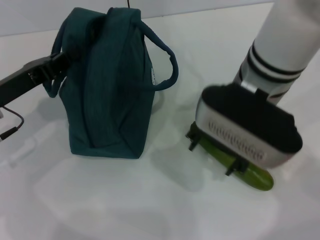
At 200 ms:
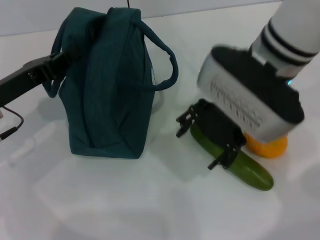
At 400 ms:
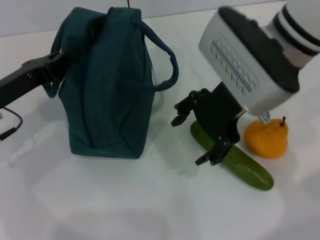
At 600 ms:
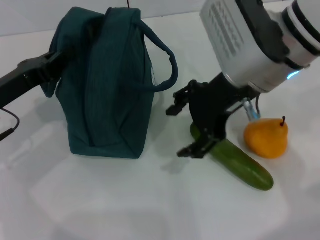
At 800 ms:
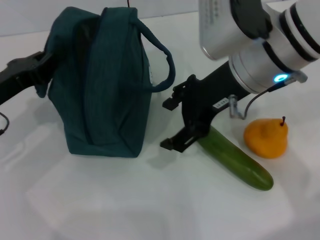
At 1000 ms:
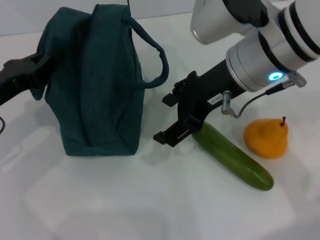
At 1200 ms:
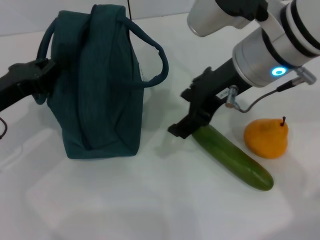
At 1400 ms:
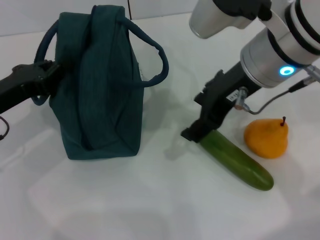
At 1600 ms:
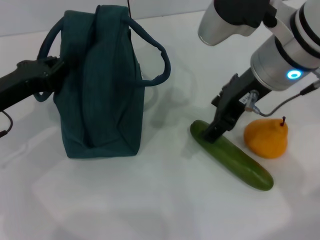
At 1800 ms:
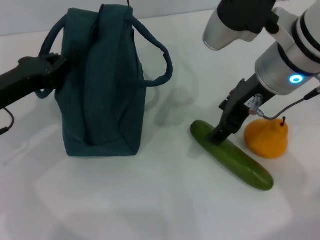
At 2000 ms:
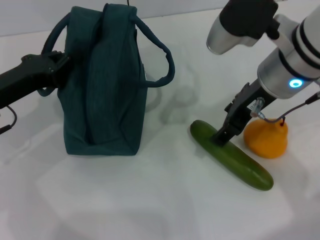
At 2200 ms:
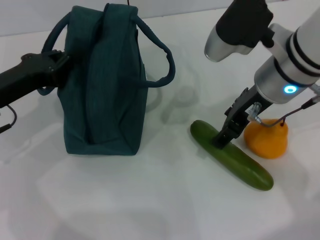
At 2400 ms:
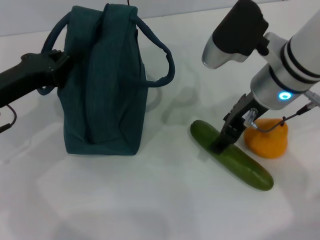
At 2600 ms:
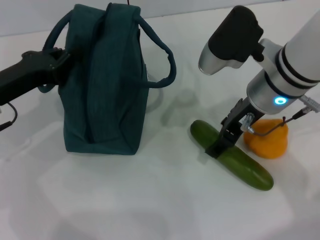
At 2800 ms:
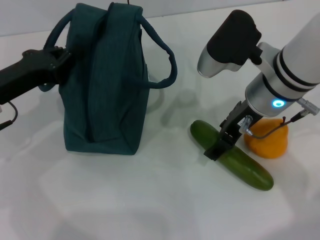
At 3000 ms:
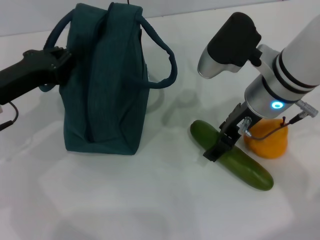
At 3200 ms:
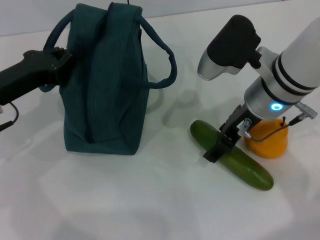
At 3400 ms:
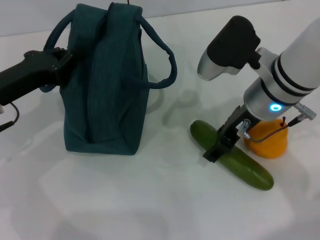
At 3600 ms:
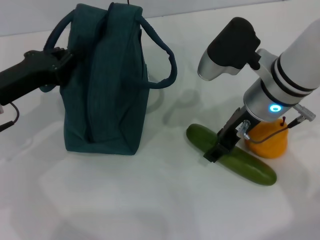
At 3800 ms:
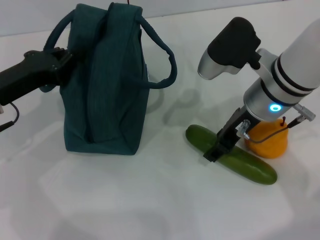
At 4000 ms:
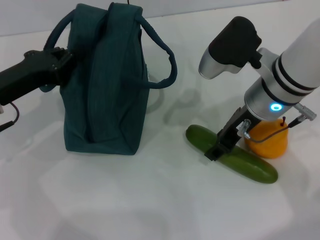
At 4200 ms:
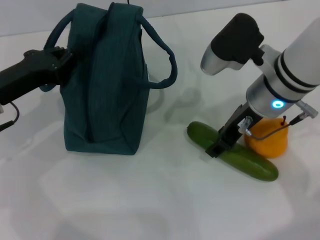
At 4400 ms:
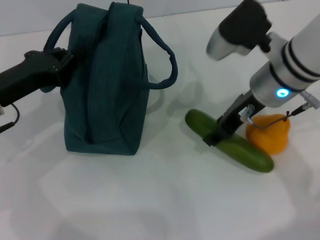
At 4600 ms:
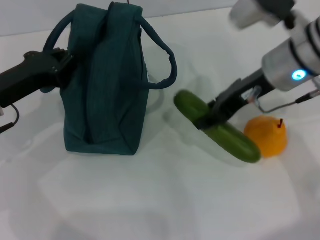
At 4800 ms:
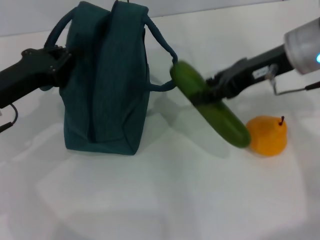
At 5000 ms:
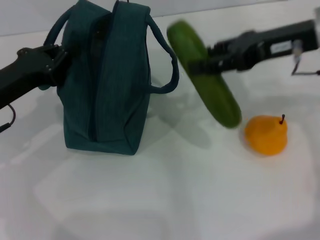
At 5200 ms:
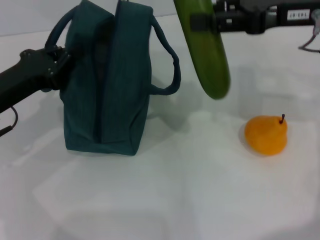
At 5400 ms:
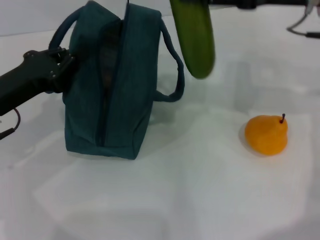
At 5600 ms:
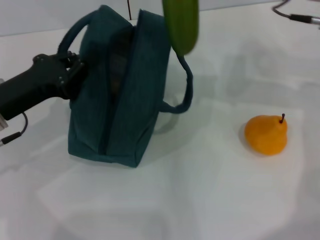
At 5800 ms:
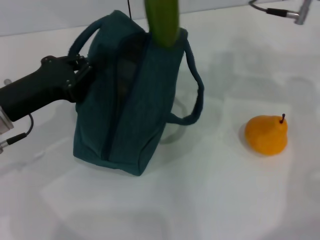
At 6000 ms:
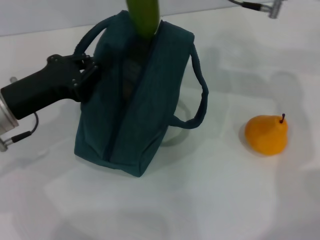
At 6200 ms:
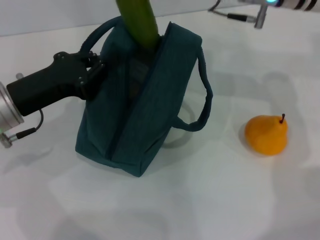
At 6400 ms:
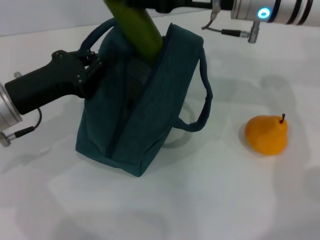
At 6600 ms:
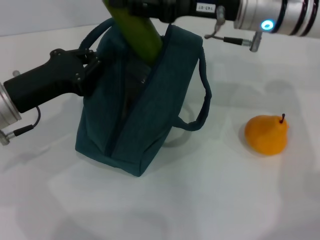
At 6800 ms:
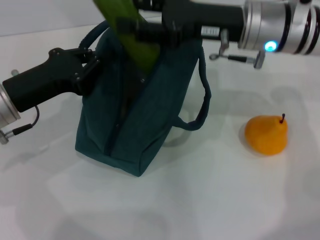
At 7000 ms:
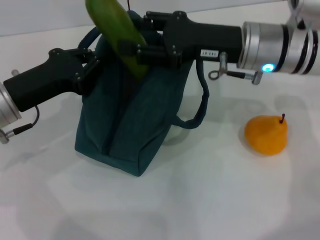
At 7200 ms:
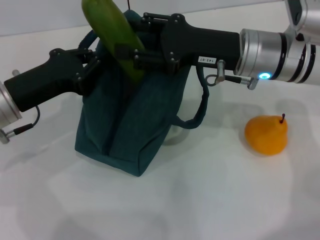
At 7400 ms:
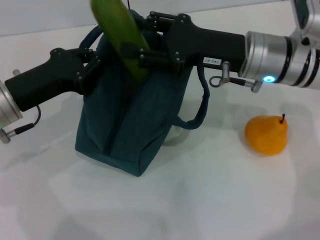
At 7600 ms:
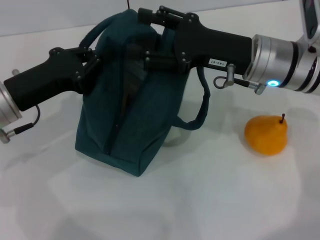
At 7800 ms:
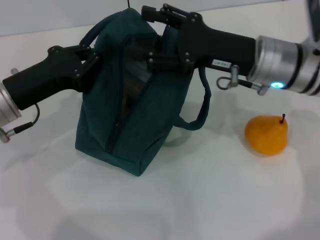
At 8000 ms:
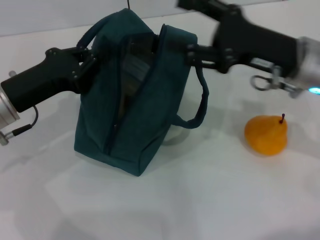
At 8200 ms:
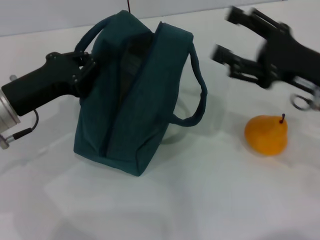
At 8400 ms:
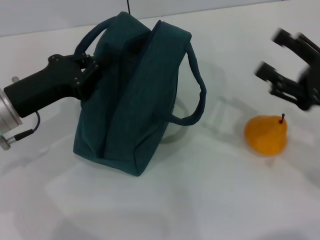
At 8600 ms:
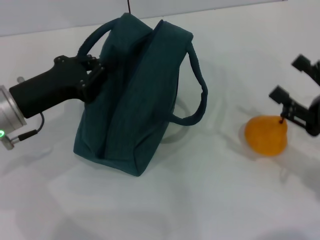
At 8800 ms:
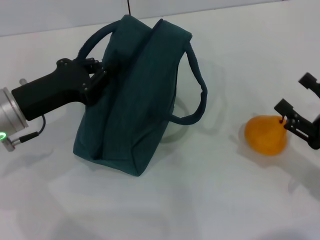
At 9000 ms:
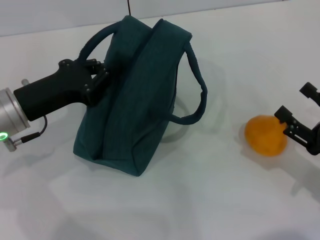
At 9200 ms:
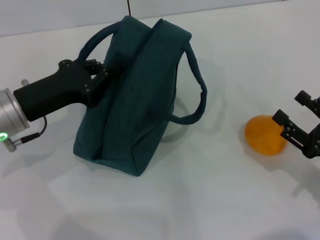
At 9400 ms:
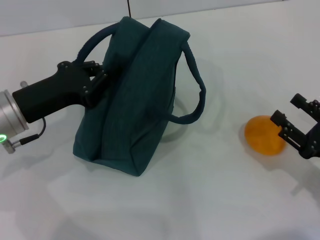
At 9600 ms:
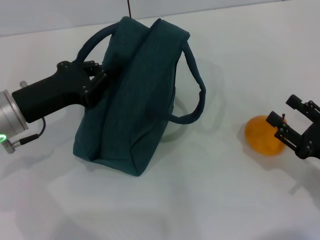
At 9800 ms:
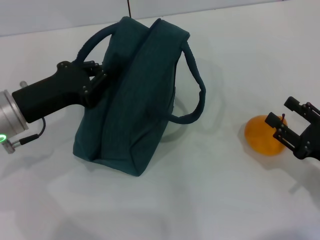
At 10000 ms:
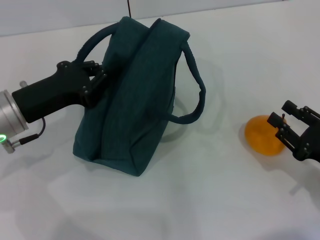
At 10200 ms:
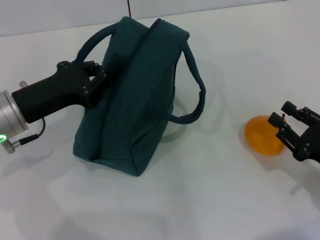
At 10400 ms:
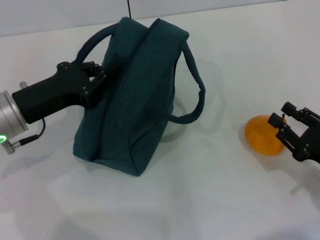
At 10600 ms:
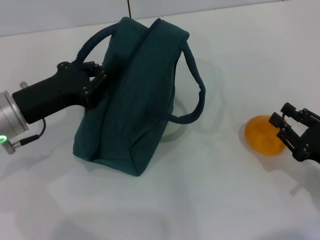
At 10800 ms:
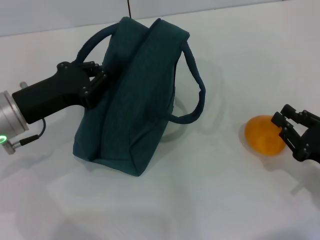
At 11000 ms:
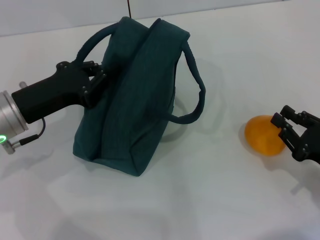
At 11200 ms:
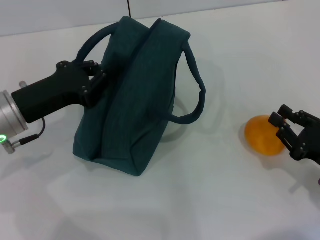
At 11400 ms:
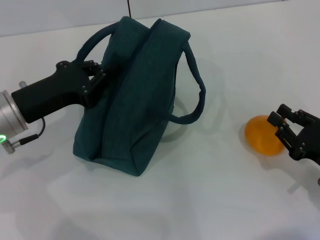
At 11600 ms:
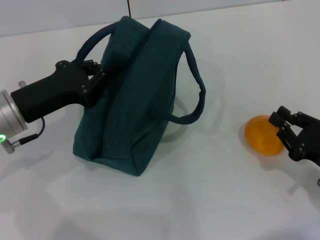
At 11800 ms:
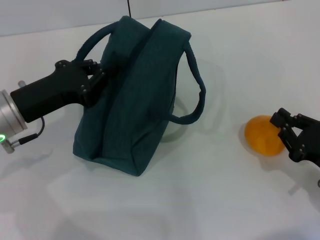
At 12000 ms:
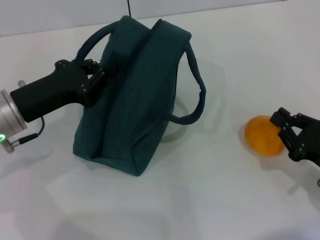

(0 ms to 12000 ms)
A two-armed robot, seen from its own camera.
Step, 0 ms - 3800 ms: Pick up the cucumber with your right hand.
Step, 4000 ms - 7600 ms: Put the cucumber into the lunch bag with your right hand.
1600 ms - 3000 ms: The right gripper shifts roughly 5 cm downward.
3000 ms - 4400 ms: The grippers move only a little.
4400 ms - 6000 ms: The right gripper heads upward and forward, covering roughly 10 cm, and goes to the right and returns, about 10 cm each way.
6000 ms - 7600 ms: The right gripper shifts some 10 cm downward and backward.
7600 ms - 9000 ms: The right gripper heads backward, to the right and downward, covering some 25 cm.
9000 ms - 10400 ms: The right gripper closes.
10400 ms - 12000 ms: Both grippers stay about where they are.

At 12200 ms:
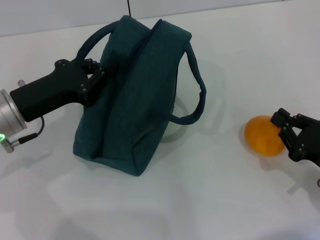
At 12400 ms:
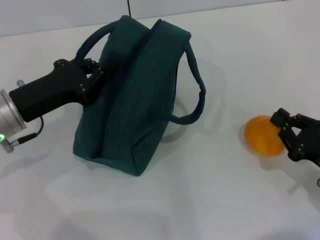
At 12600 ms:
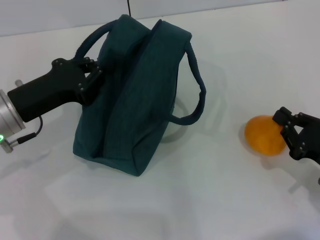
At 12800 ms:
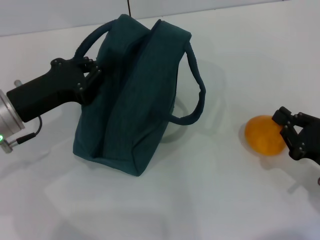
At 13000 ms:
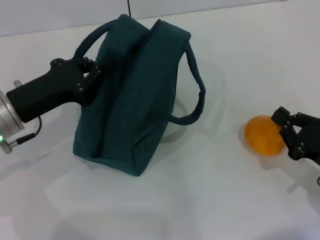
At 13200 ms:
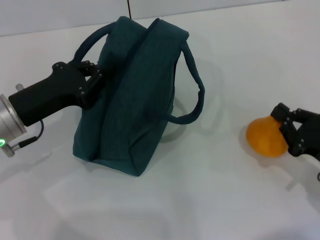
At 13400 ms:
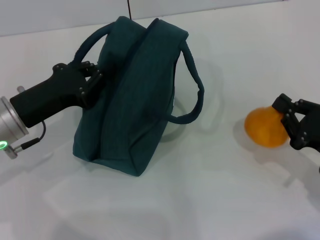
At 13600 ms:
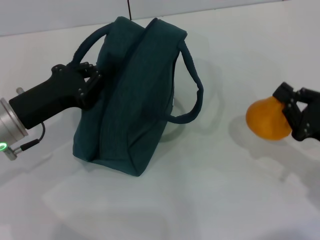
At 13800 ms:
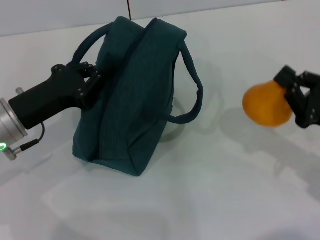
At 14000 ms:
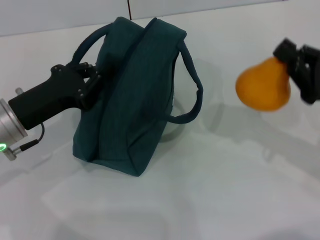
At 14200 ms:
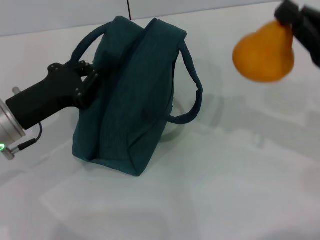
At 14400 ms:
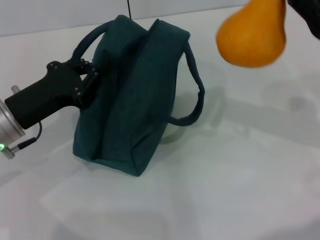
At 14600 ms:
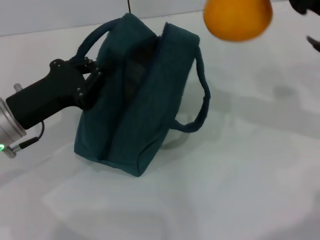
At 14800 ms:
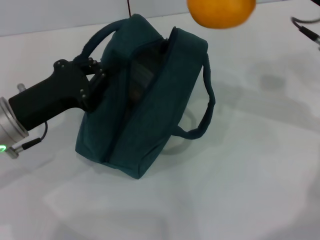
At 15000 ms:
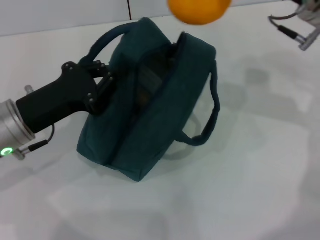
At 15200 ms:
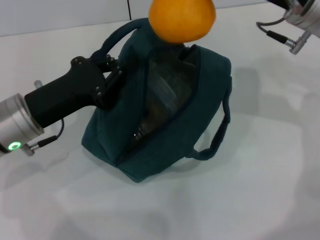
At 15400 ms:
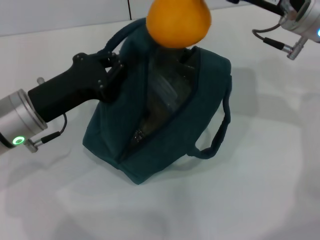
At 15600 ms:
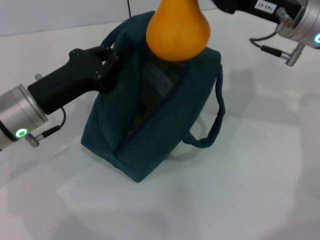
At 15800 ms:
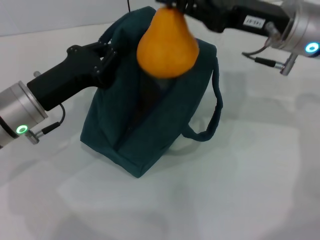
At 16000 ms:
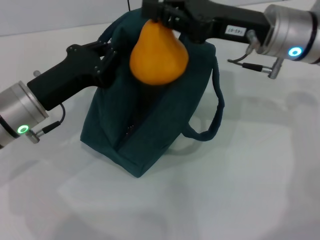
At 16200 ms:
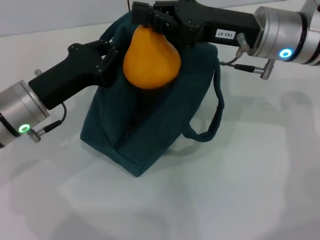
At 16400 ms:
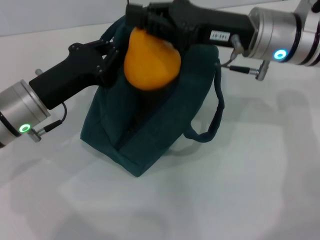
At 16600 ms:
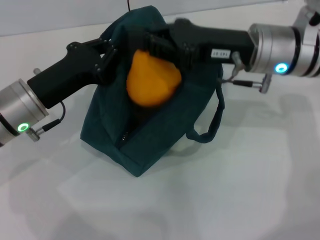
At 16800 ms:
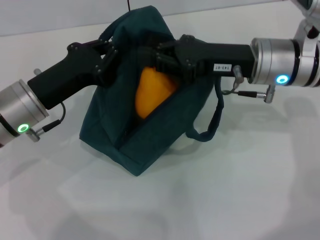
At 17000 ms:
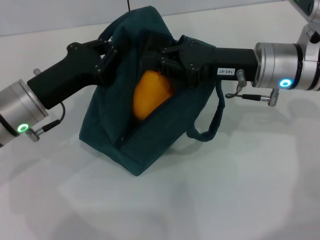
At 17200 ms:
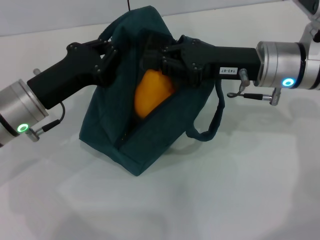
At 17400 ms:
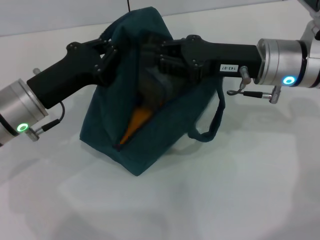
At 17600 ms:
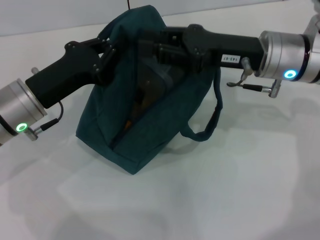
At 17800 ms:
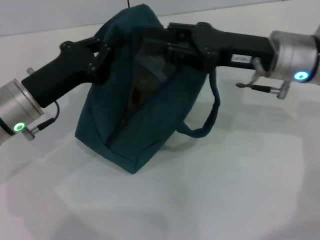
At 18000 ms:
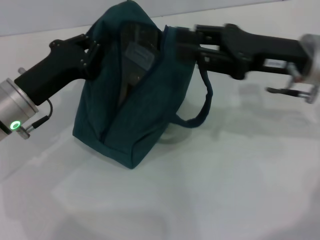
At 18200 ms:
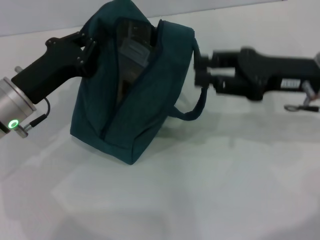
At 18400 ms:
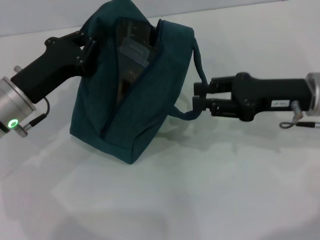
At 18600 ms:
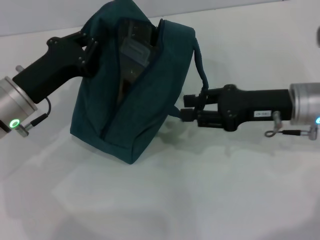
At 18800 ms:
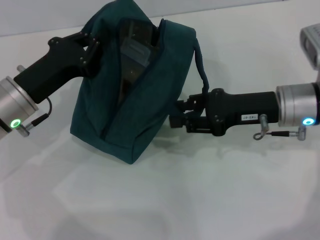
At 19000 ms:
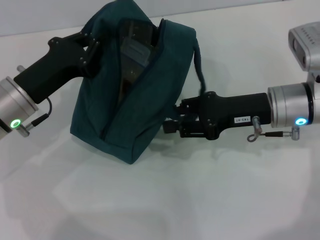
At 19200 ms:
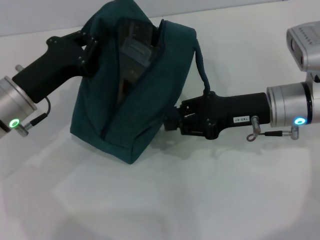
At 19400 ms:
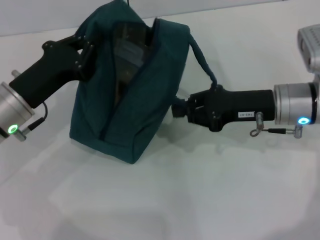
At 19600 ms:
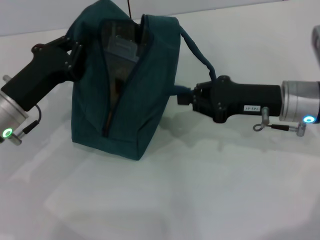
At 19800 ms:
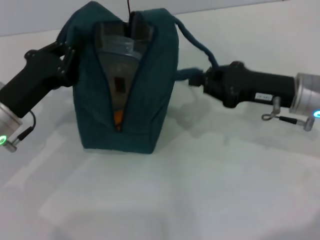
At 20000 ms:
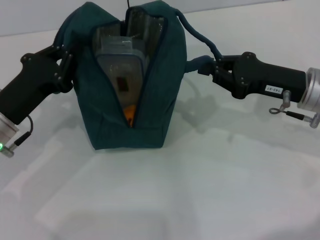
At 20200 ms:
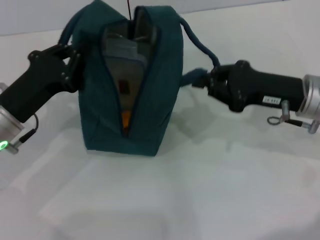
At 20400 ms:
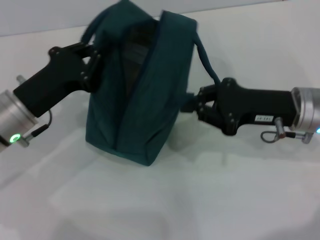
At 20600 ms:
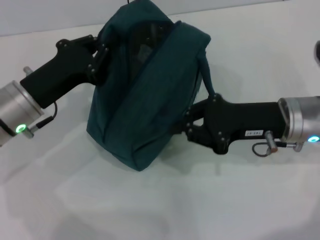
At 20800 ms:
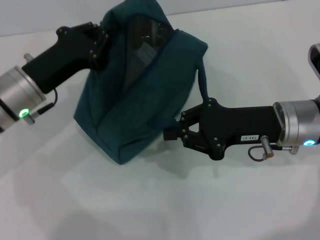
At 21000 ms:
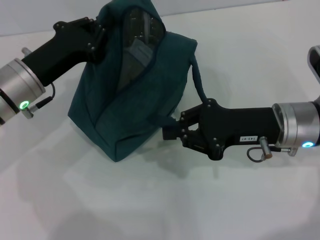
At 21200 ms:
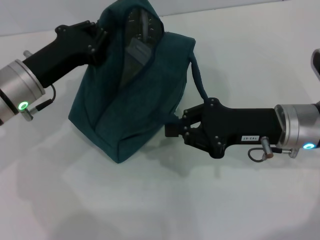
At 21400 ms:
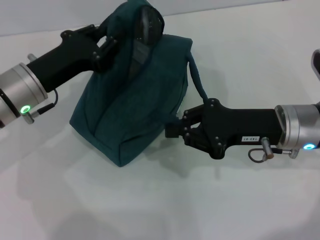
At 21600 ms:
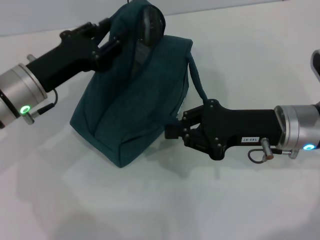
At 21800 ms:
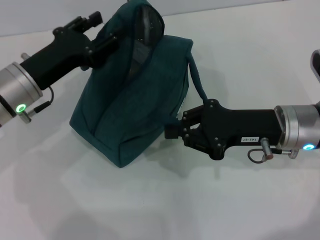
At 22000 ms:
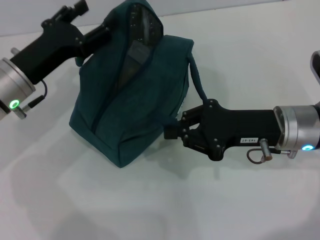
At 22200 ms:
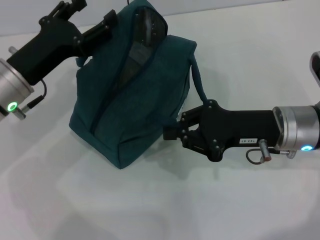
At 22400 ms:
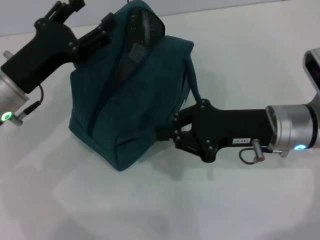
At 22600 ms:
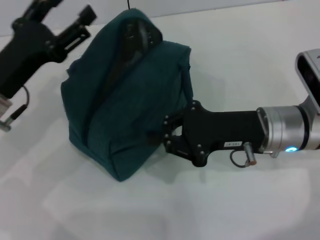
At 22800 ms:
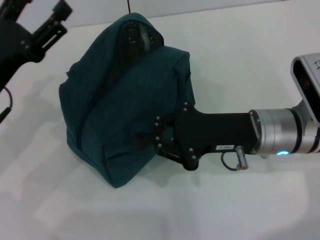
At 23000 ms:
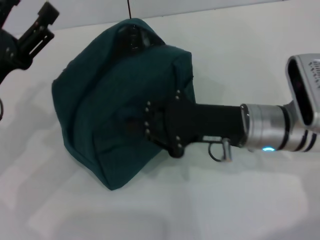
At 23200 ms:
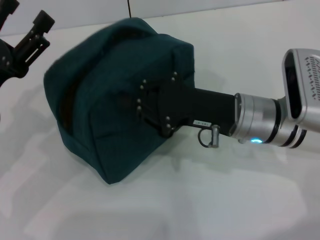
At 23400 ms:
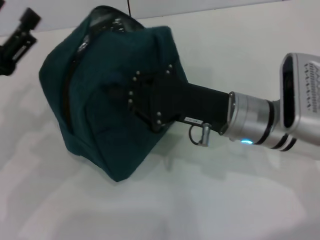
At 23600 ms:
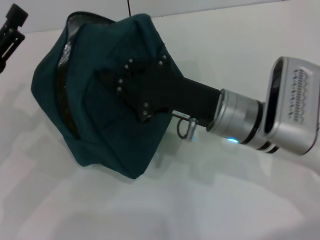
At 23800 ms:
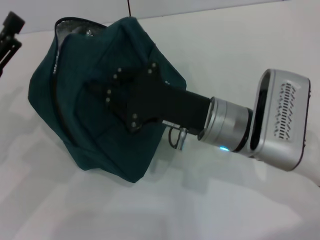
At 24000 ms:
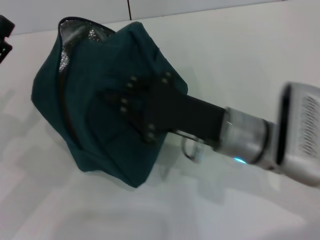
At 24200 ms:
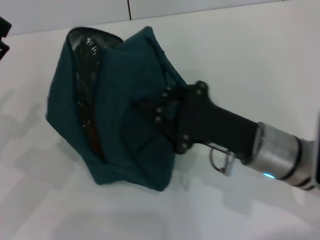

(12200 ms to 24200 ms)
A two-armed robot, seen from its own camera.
Step, 13200 ms - 17600 ms: Secure the lunch bag with your left hand.
Step, 17800 ms - 21600 ms: Hold the lunch bag with your left hand.
12200 ms - 13800 ms: The right gripper changes place by roughly 5 cm.
13800 ms - 15200 ms: The right gripper moves forward, upward and to the left, roughly 20 cm.
15200 ms - 16600 ms: The right gripper ends up approximately 5 cm from where it was.
16600 ms - 18200 ms: The right gripper shifts approximately 10 cm to the right, and opens up.
18200 ms - 19800 ms: The right gripper closes its fingers.
19800 ms - 21200 ms: The left gripper moves roughly 5 cm.
21200 ms - 22600 ms: The left gripper opens its fingers.
22600 ms - 24200 ms: The left gripper travels to the left and backward by approximately 10 cm. Meanwhile the right gripper changes place by approximately 5 cm.
